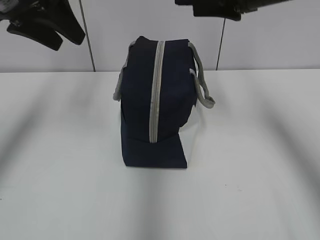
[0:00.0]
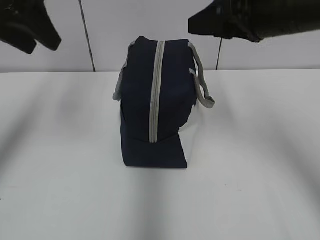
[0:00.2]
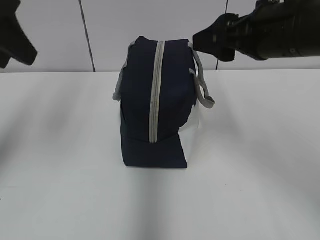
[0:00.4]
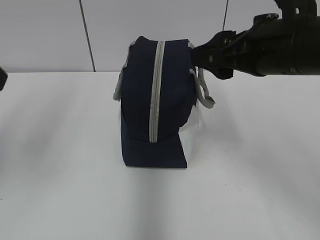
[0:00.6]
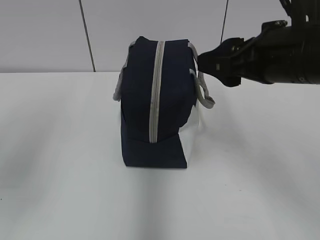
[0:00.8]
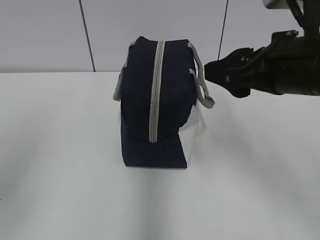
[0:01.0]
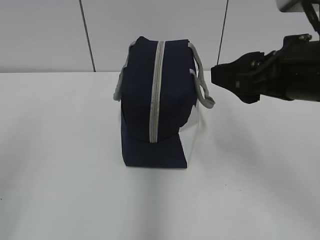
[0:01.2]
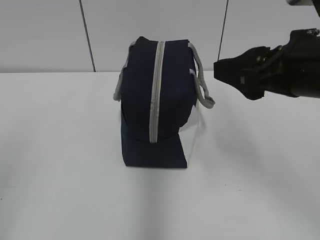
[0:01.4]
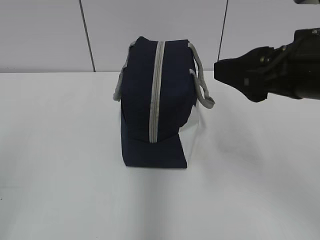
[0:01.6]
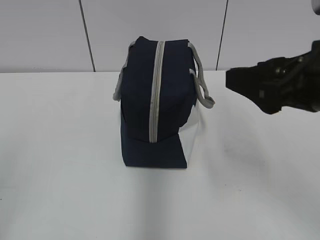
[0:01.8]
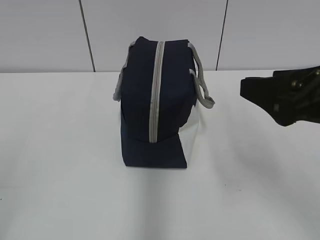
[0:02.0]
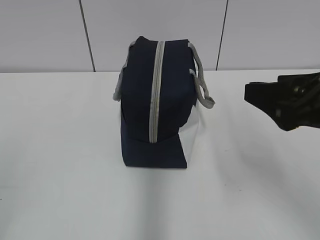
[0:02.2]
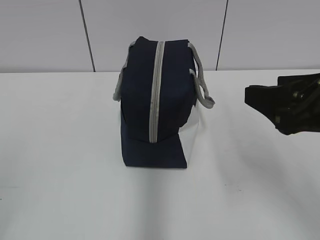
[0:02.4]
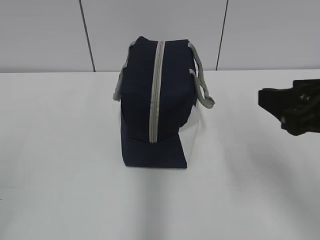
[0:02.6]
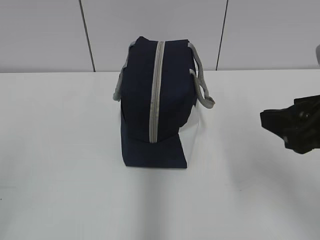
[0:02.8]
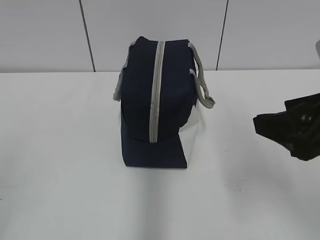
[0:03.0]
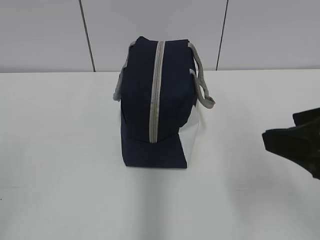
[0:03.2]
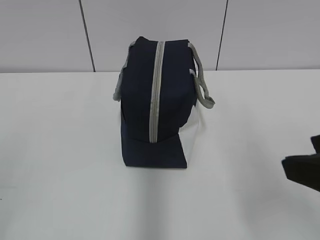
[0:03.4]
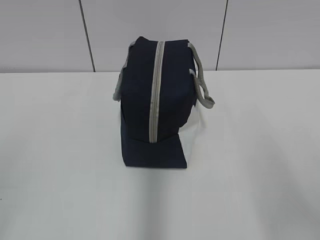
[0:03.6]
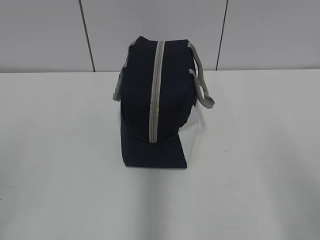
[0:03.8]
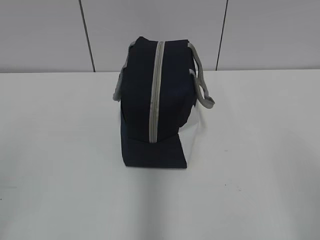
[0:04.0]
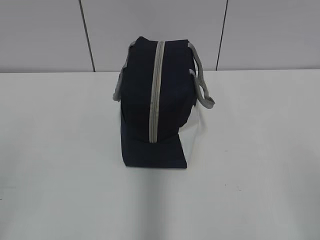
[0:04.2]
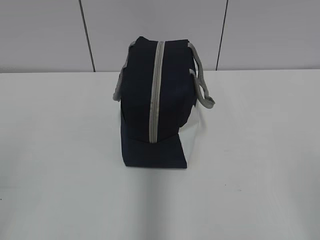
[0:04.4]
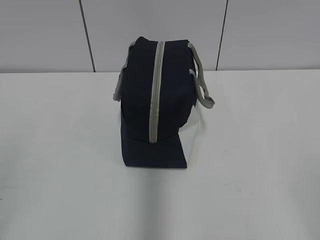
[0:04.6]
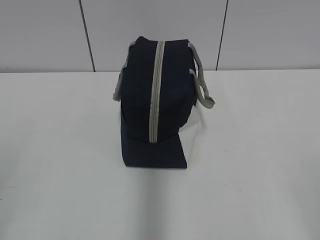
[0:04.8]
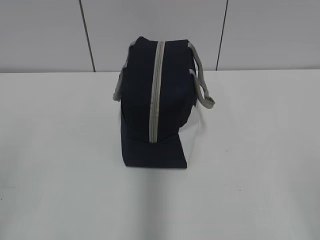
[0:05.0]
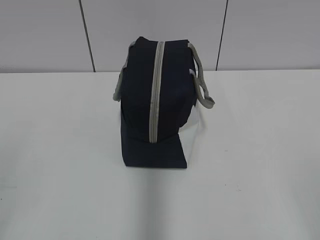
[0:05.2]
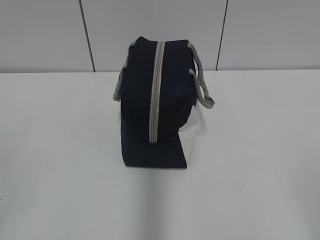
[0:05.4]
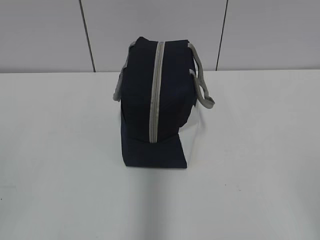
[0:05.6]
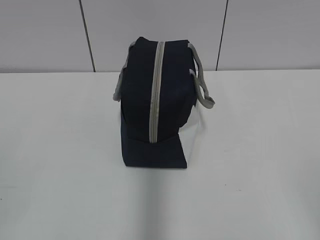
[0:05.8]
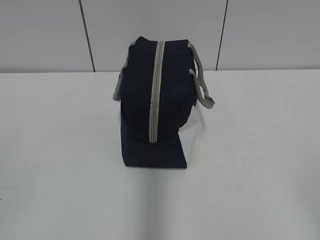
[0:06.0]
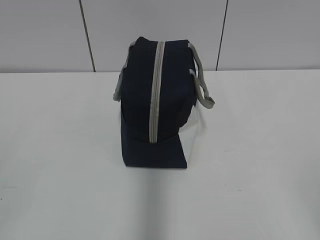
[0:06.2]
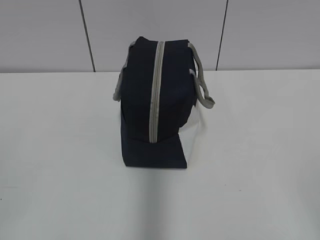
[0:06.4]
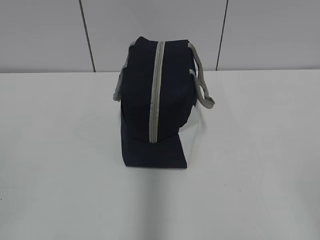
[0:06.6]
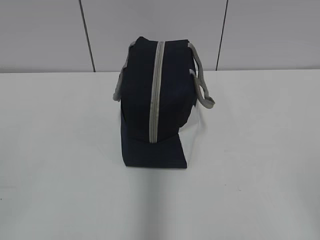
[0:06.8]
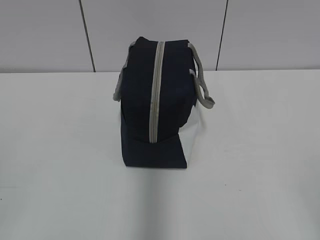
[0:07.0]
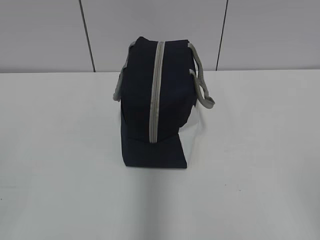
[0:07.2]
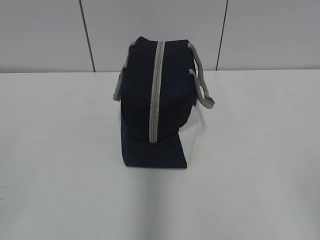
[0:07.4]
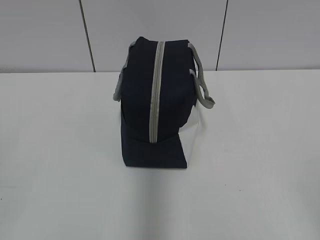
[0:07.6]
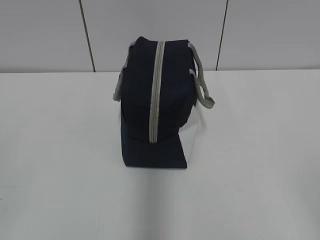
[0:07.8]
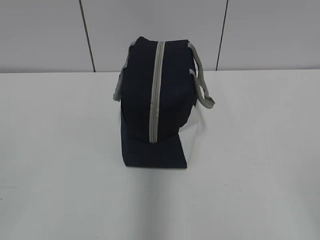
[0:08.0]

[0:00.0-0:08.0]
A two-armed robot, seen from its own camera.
0:00.0 to 0:01.6: The right gripper goes some 15 cm backward; the left gripper heads backward, covering roughly 30 cm.
0:01.6 to 0:03.2: The right gripper shifts some 5 cm backward.
0:03.2 to 0:04.8: The right gripper shifts approximately 20 cm backward and to the right.
0:06.4 to 0:08.0: Both grippers stay put.

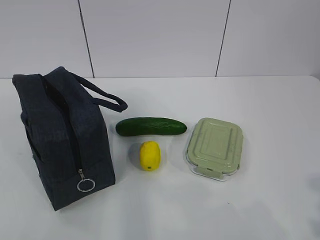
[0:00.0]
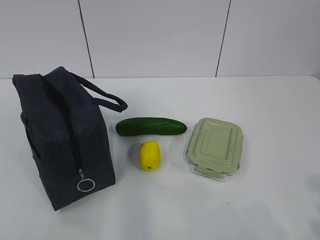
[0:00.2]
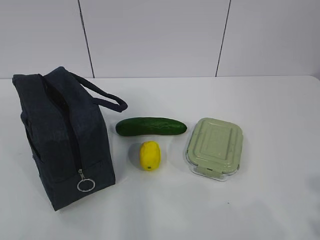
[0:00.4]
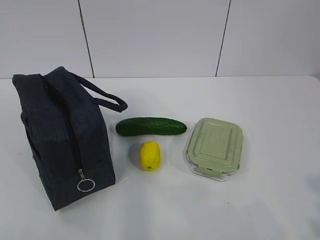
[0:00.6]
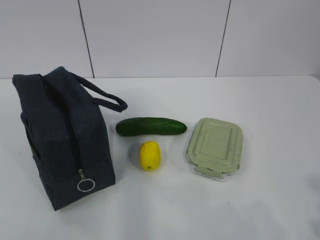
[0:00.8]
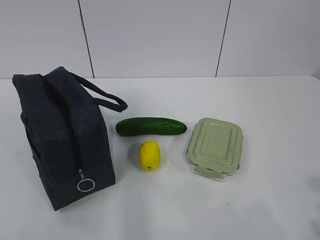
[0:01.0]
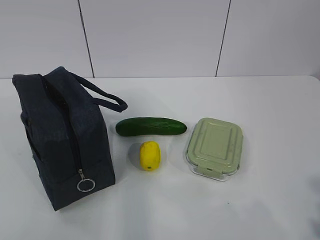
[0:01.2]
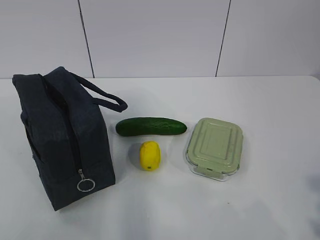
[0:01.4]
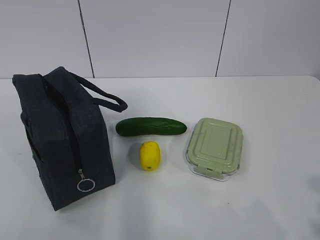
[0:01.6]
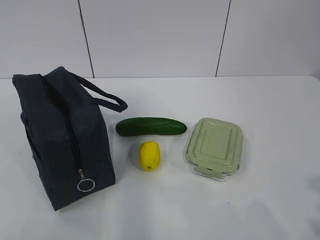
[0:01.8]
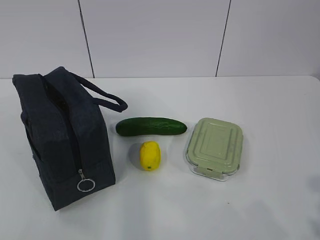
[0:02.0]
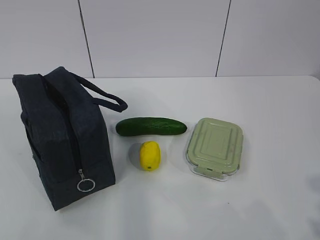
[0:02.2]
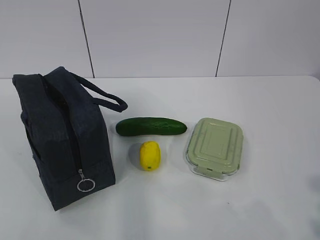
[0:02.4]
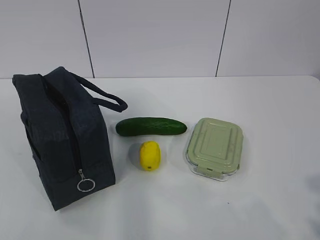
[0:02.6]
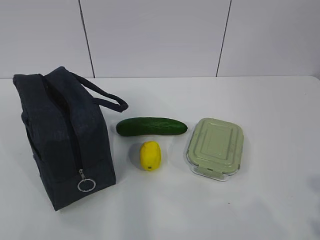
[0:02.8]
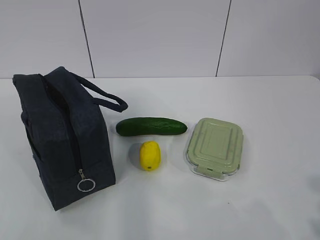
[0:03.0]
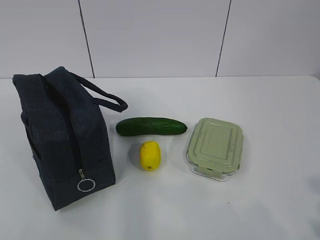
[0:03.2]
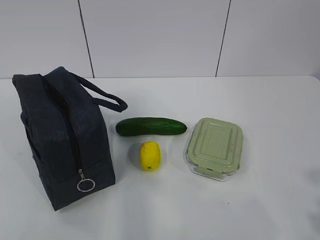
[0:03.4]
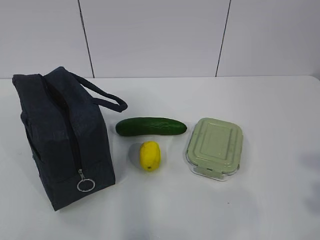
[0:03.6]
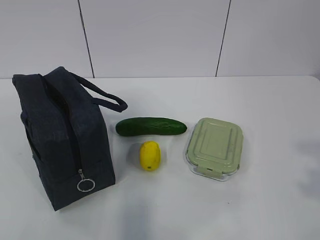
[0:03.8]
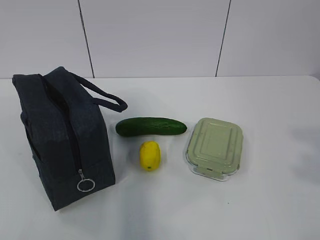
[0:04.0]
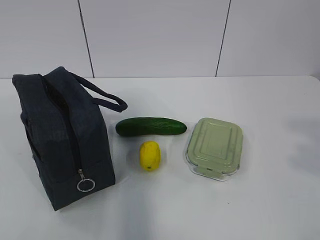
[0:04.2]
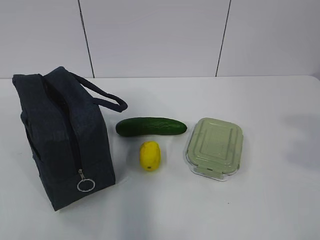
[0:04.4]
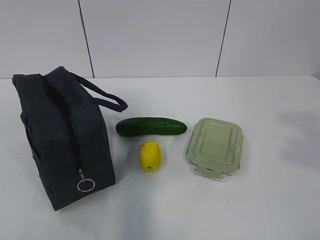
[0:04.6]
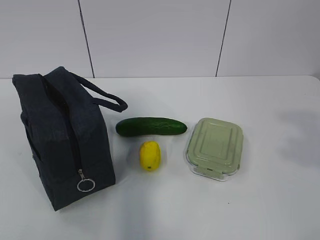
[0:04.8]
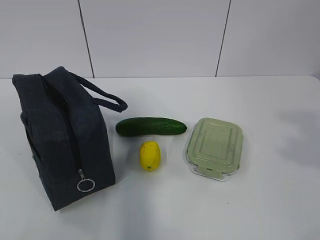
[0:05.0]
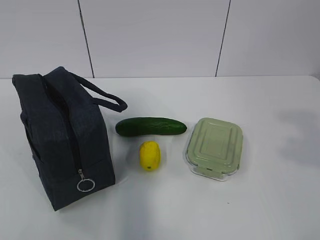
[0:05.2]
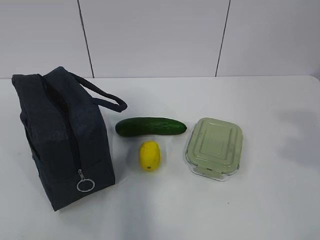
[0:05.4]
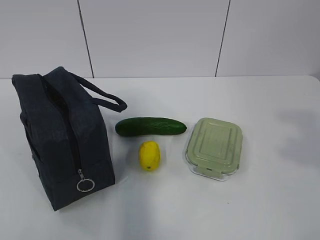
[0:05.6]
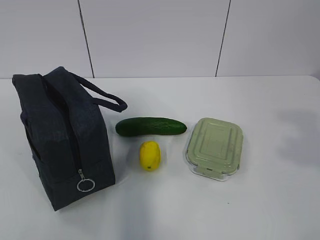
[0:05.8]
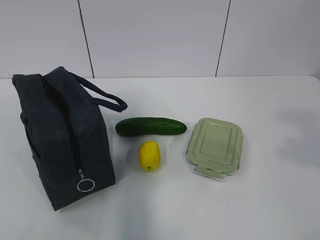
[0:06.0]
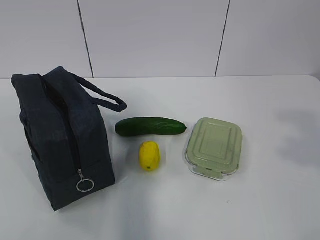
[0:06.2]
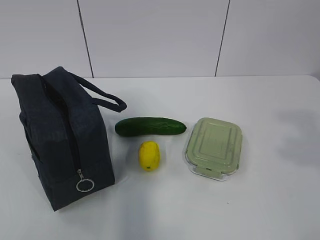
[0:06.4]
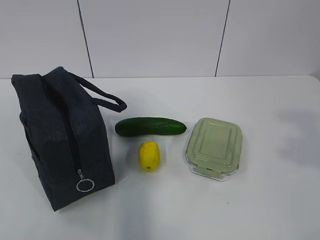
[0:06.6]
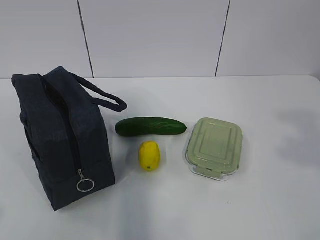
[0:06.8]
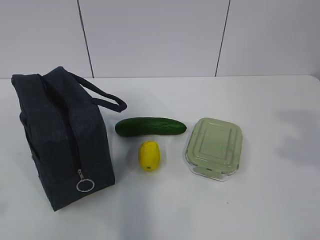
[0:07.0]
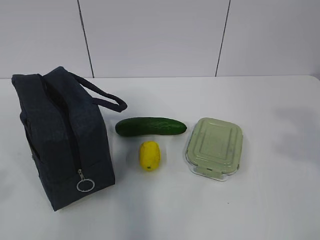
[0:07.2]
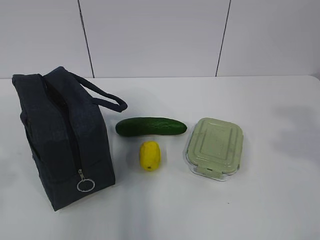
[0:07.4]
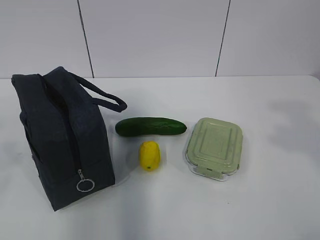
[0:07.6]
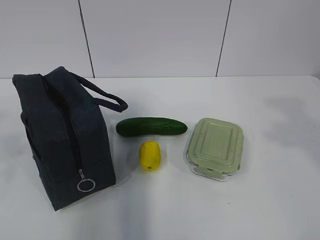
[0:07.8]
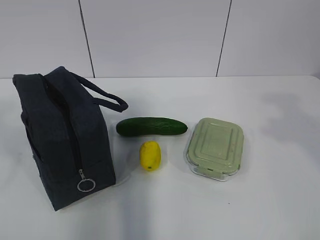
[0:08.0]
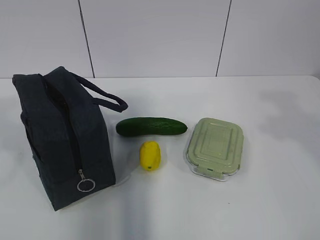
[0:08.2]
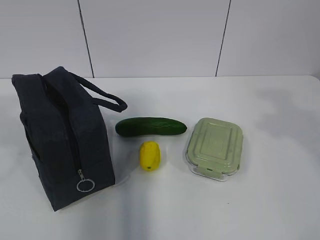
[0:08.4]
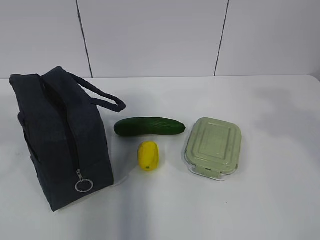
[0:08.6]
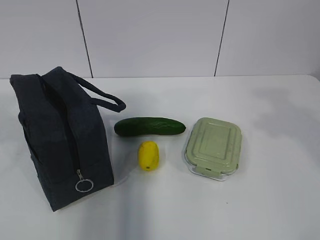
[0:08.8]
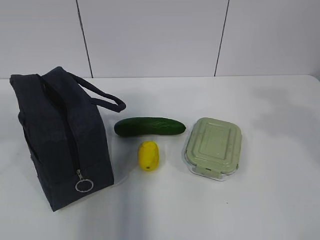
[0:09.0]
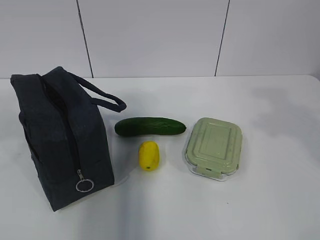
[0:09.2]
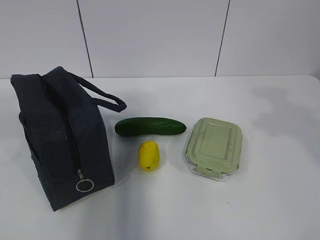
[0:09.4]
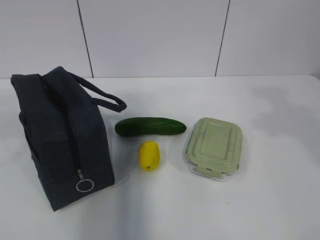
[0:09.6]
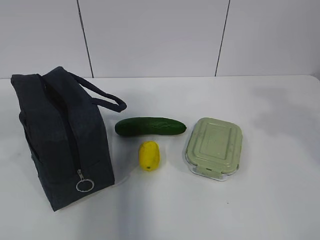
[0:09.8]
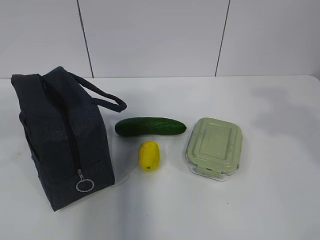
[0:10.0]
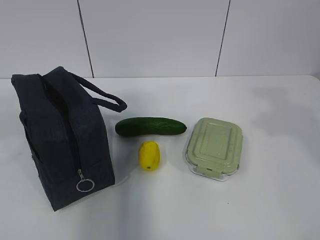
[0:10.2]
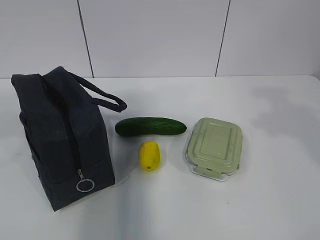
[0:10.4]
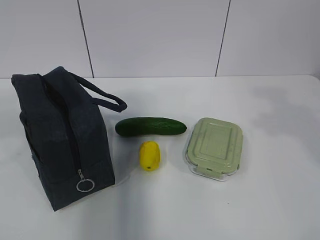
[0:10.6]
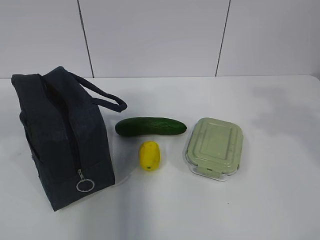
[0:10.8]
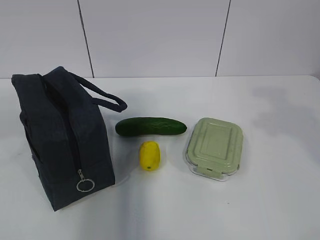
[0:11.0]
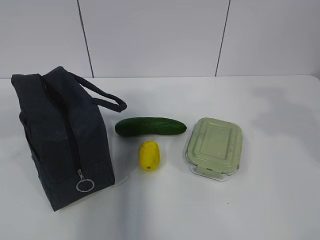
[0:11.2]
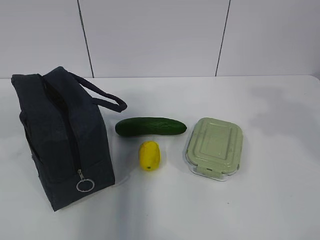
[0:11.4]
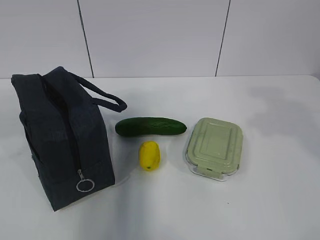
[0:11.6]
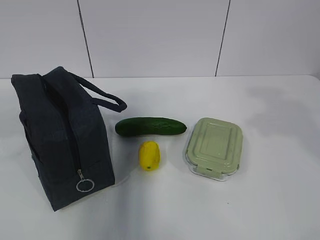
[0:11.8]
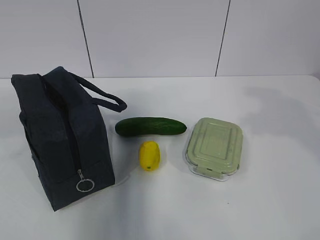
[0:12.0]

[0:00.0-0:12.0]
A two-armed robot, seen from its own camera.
0:01.6 to 0:03.0: Neither gripper changes place.
0:07.6 to 0:09.0: Both grippers move forward, about 10 cm.
0:09.0 to 0:10.4: The grippers stay close to where they were, moving slightly.

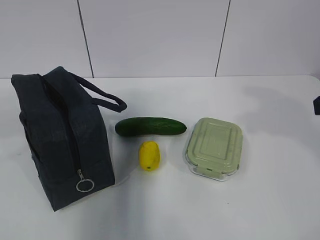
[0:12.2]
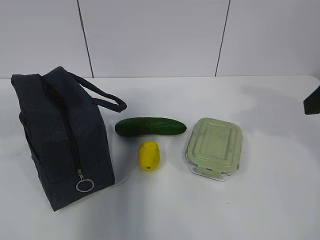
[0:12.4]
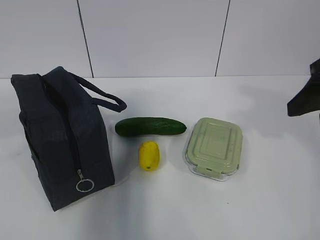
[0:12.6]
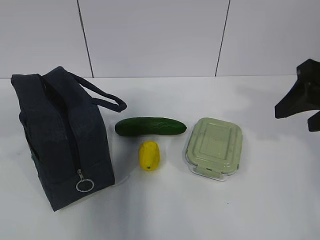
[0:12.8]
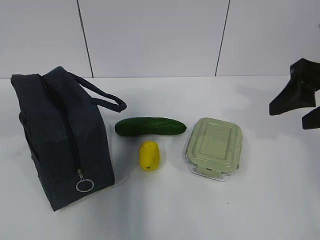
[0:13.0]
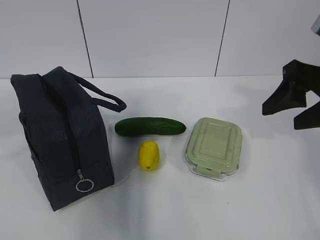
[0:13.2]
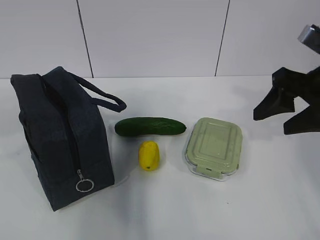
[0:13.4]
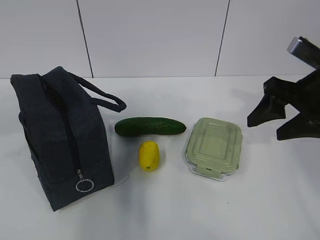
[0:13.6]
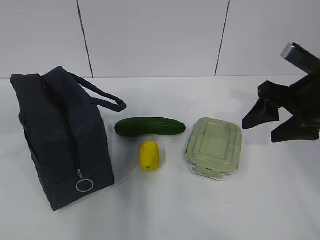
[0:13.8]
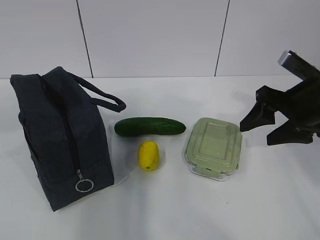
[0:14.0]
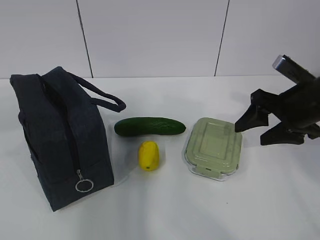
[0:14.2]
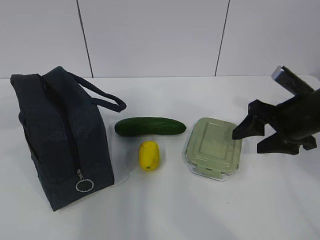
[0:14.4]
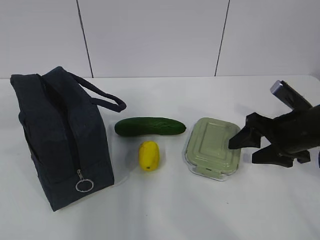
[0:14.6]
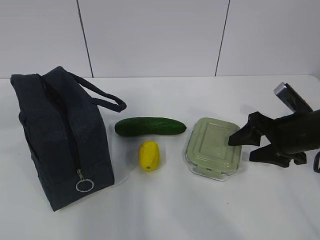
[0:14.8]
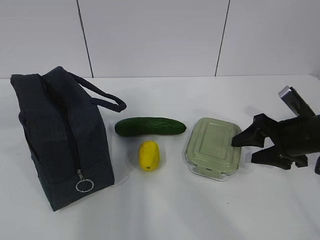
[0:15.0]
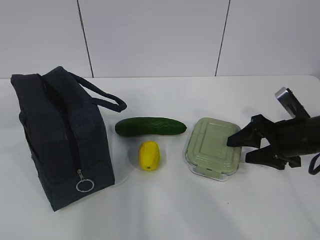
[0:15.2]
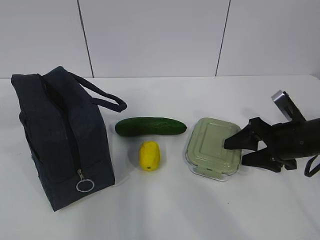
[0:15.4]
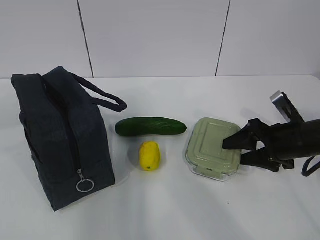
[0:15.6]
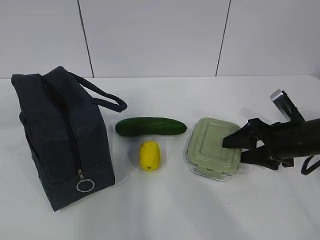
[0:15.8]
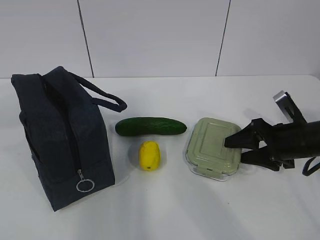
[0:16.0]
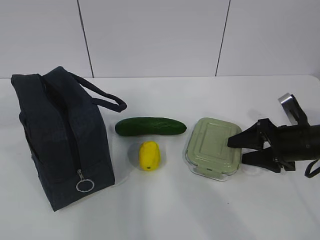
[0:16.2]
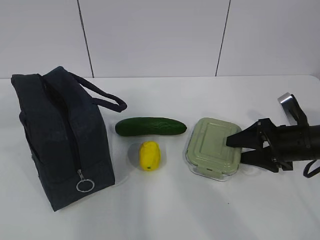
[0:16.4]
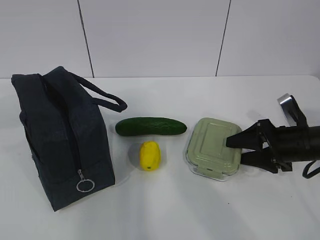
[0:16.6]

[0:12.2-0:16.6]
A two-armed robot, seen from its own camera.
0:12.2 to 0:13.6: The right gripper shifts roughly 10 cm forward and downward.
0:13.6 to 0:15.2: The right gripper heads downward, covering roughly 10 cm.
0:15.2 to 0:16.6: There are only small adjustments of the grippers.
